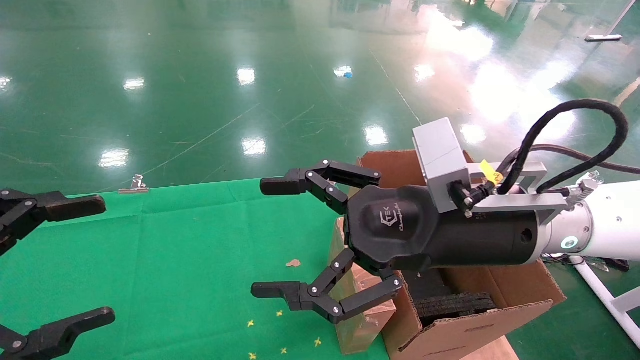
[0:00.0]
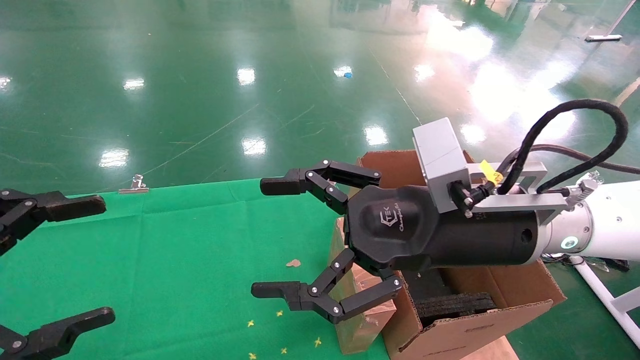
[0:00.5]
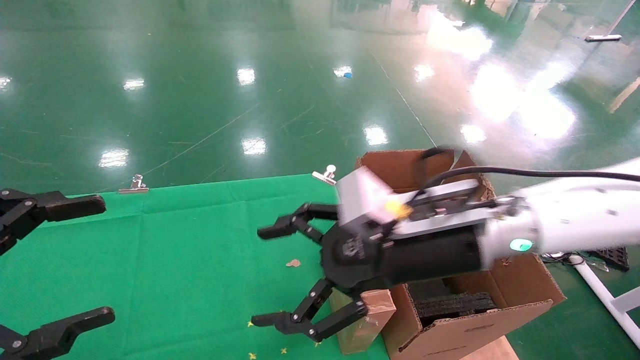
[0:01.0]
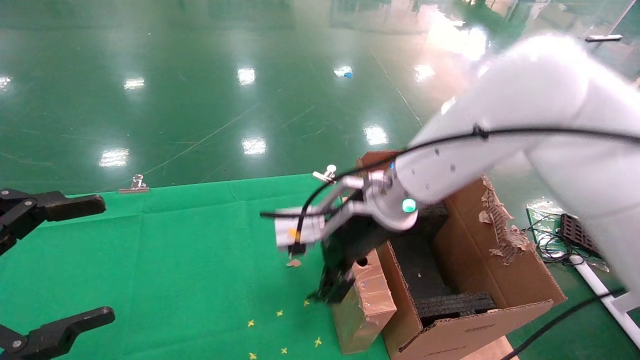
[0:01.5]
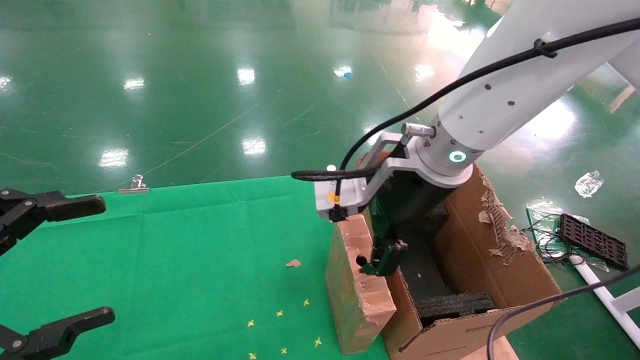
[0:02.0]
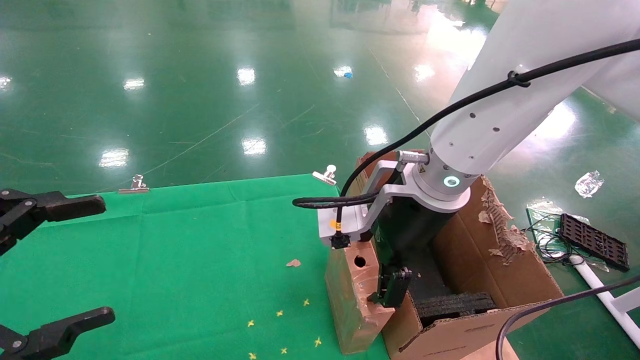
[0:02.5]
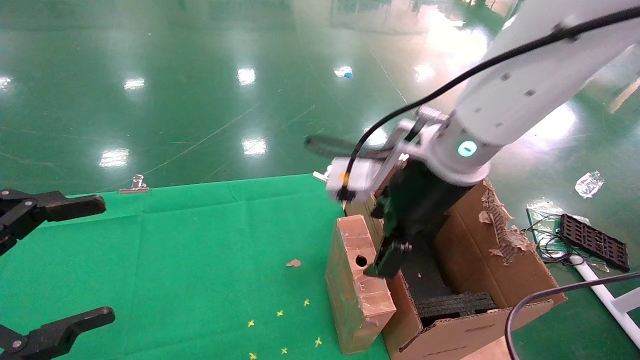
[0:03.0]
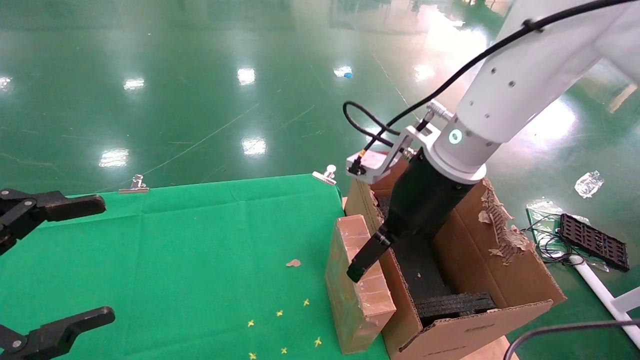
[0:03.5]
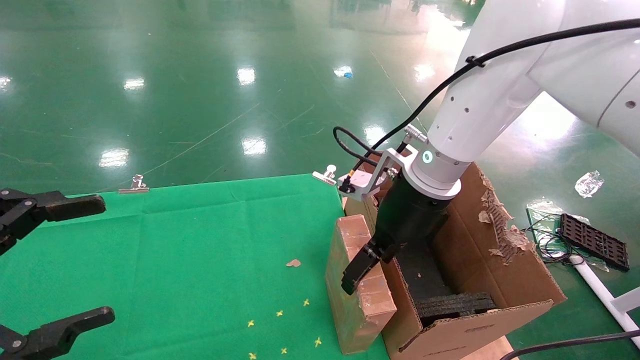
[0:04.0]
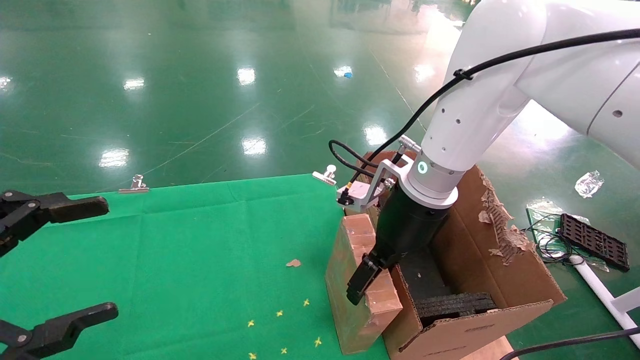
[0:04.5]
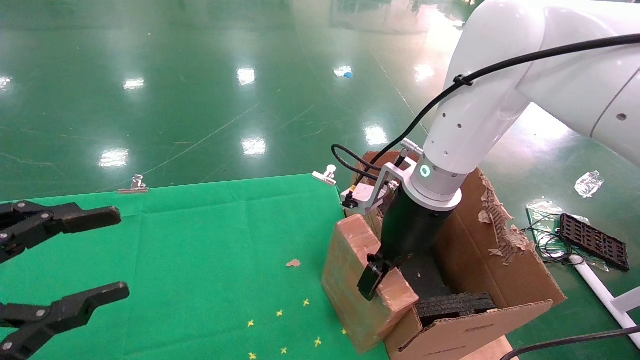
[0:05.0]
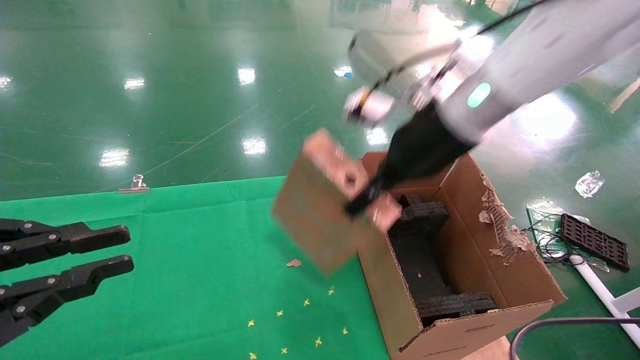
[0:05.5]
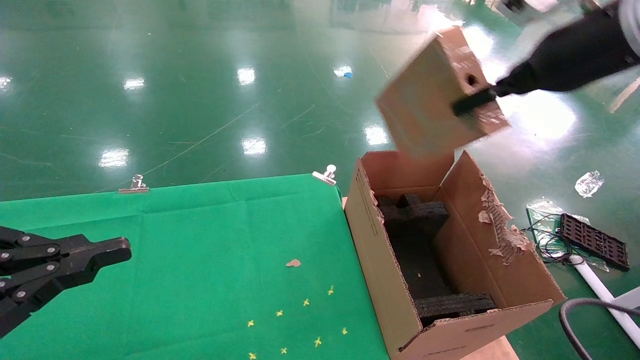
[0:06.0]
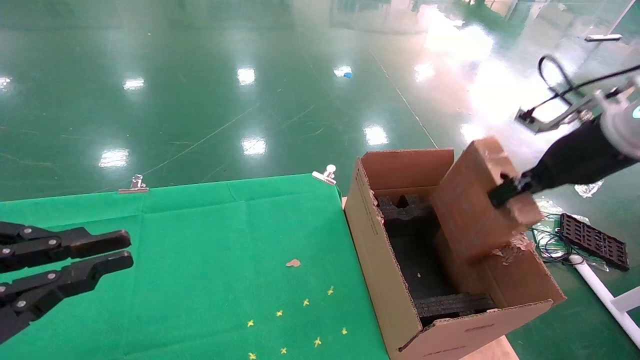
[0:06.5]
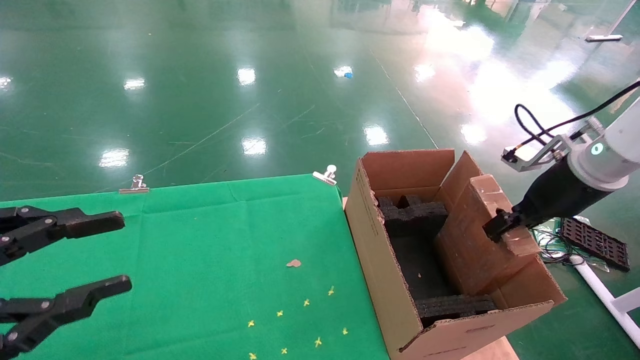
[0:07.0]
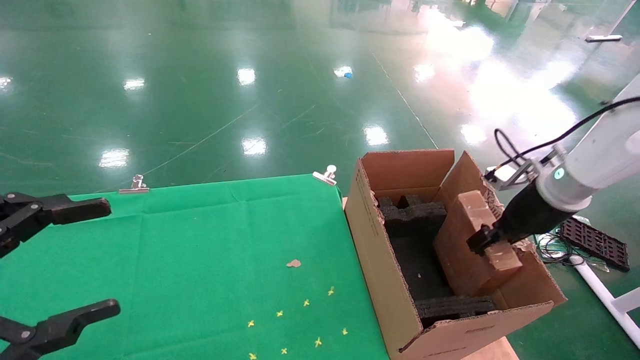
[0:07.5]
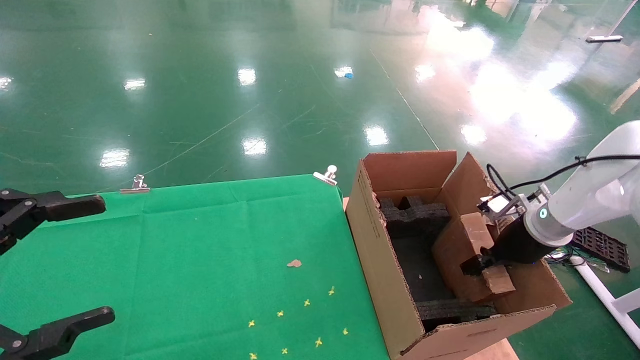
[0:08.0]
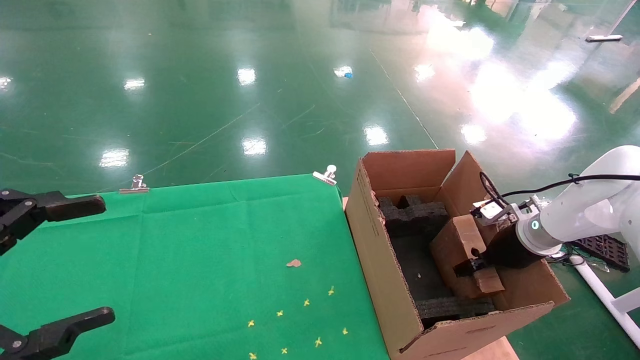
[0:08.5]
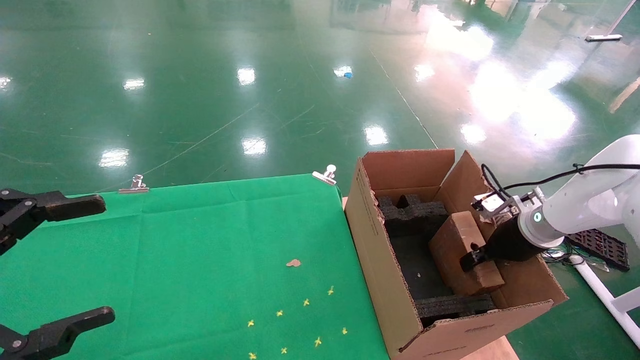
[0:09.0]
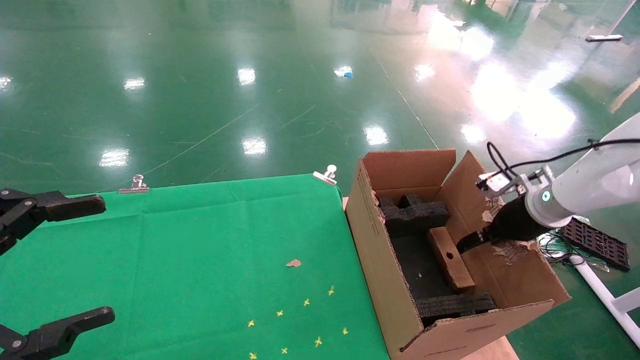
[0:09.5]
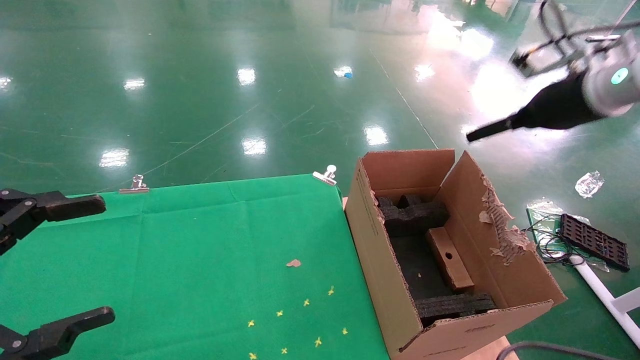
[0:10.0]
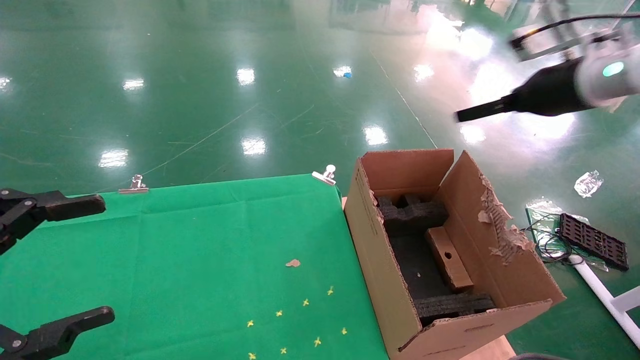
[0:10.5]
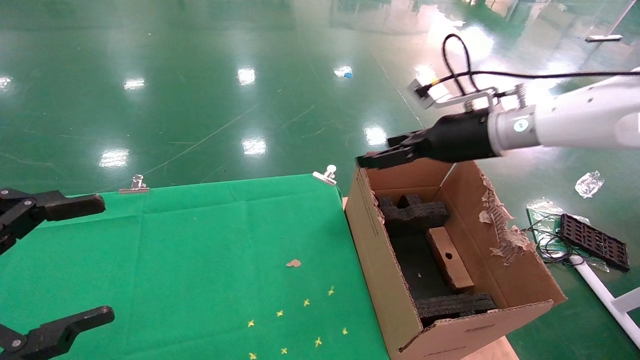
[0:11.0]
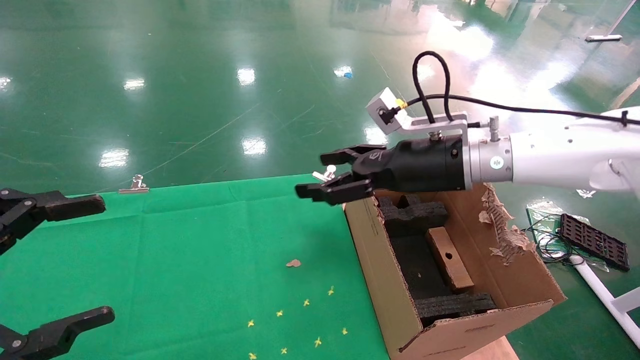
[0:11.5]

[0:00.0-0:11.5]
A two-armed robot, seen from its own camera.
Task of the whole recording: using a robotic arm to pick up a cardboard box and palace it the carton.
Step, 0:01.0 to 0:05.0: Pick up the mouse and the power cord paper box.
Step, 0:05.5 to 0:10.0: Place the mouse and the power cord paper box into the container.
0:00.0 to 0:02.0: The right gripper travels forward by approximately 10 cm.
0:02.0 to 0:04.0: The right gripper moves approximately 5 cm.
0:04.0 to 0:06.0: The left gripper closes its fingers. Meanwhile the right gripper travels to the right and upward by roughly 20 cm, and closes up.
0:06.0 to 0:07.5: The right gripper moves downward, some 20 cm, while the left gripper opens.
0:07.5 to 0:09.5: The right gripper goes downward and returns, about 10 cm each way, and opens.
0:09.5 to 0:11.5: The right gripper moves to the left and upward, some 20 cm, and opens up.

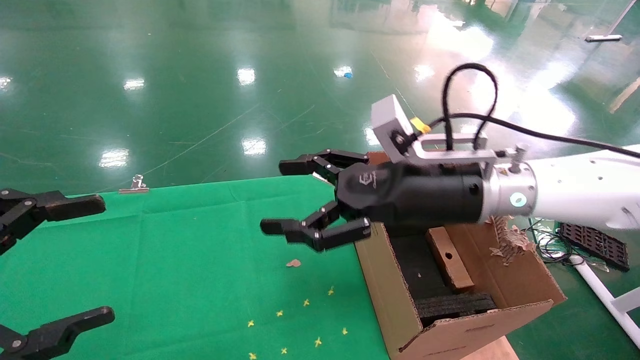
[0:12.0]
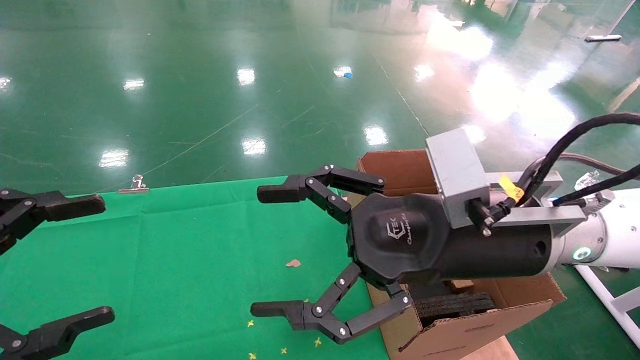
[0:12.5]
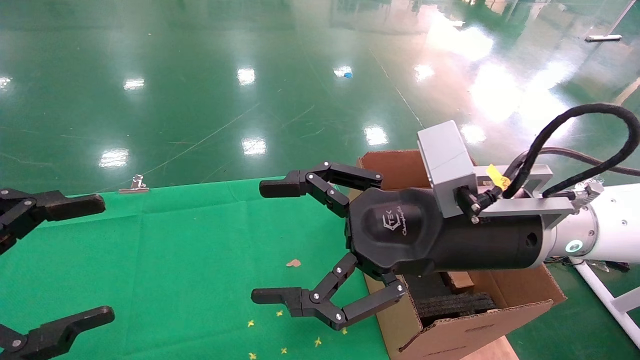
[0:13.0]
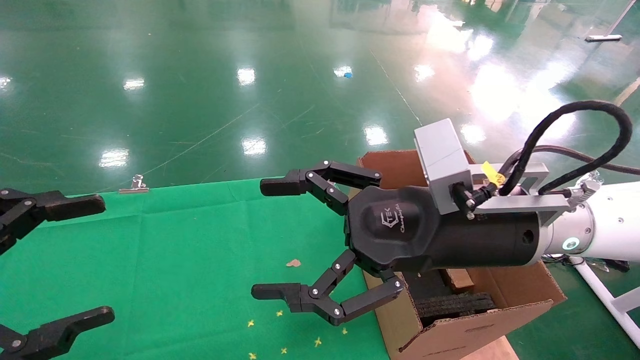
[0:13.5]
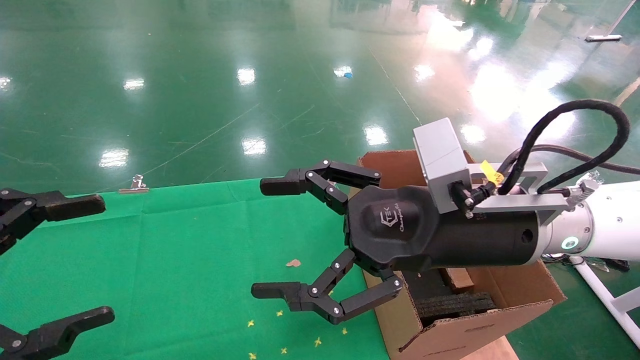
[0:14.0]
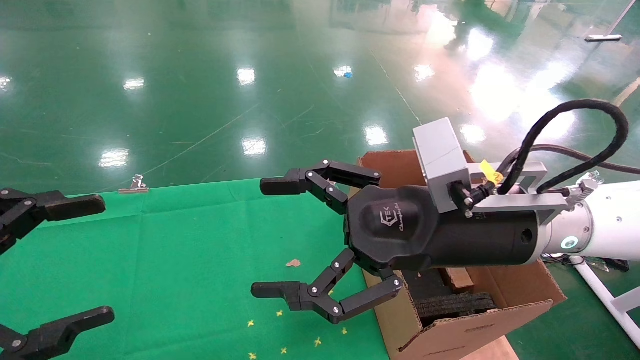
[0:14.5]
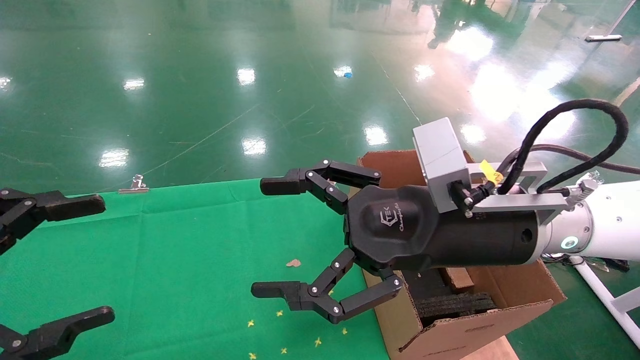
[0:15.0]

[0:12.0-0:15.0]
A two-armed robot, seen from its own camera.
Task of the whole recording: using a robotic arm to pick up a cardboard box and palace it the carton.
0:12.0 to 0:13.5: The right gripper shifts roughly 5 cm backward.
0:13.5 to 0:15.0: Both grippers stay about where they are.
